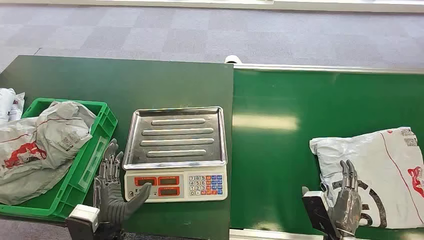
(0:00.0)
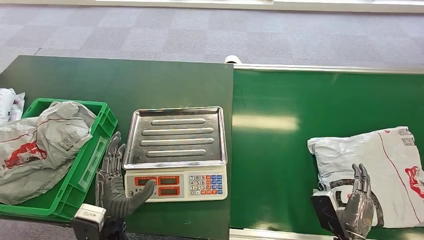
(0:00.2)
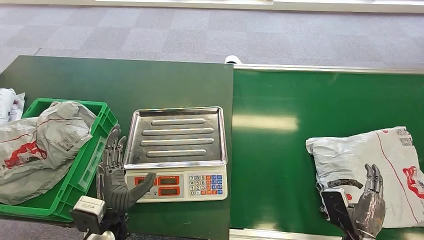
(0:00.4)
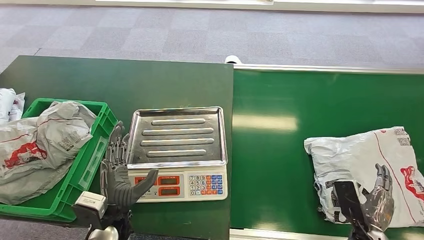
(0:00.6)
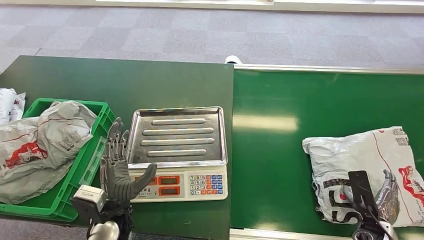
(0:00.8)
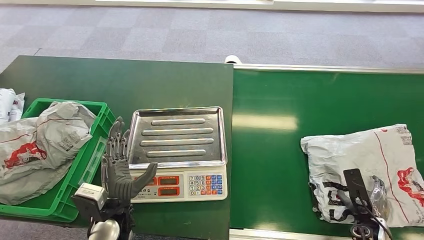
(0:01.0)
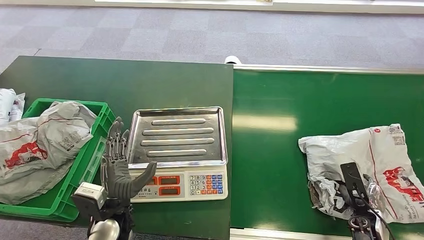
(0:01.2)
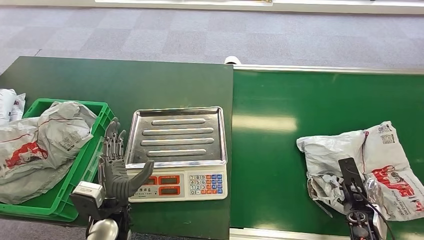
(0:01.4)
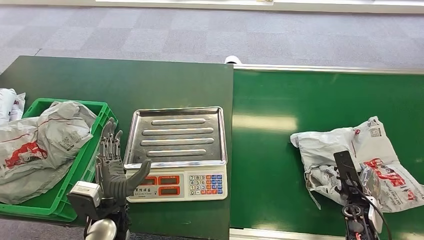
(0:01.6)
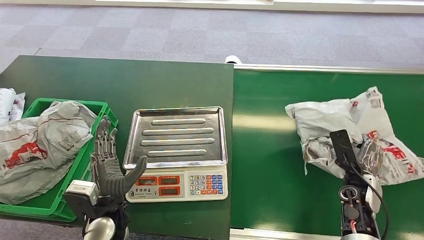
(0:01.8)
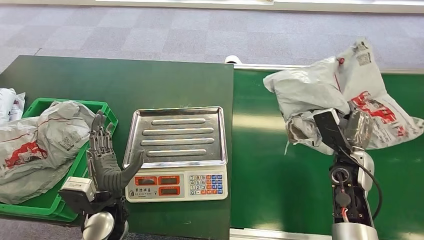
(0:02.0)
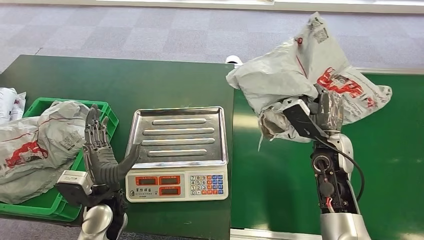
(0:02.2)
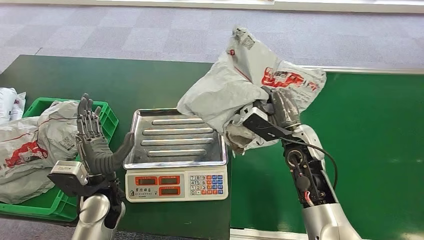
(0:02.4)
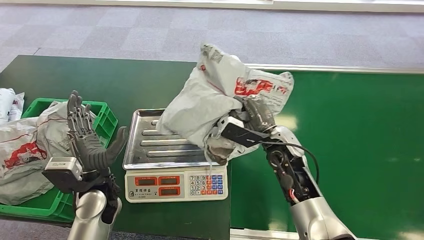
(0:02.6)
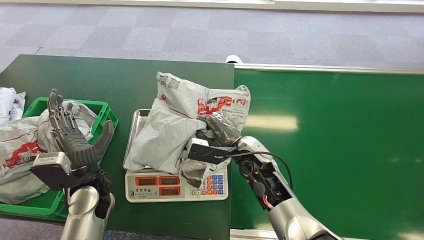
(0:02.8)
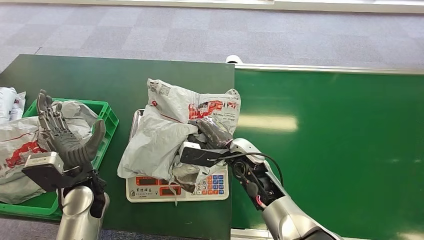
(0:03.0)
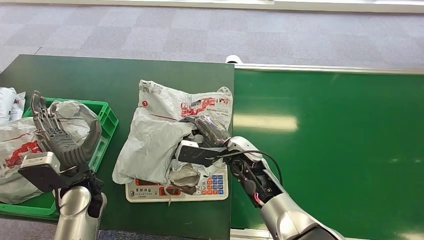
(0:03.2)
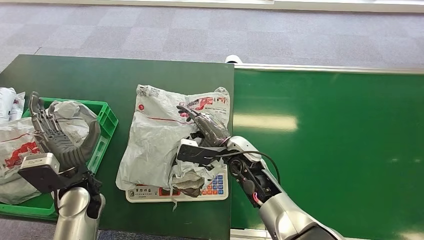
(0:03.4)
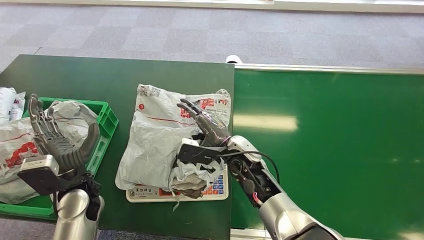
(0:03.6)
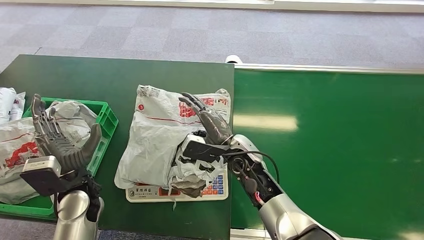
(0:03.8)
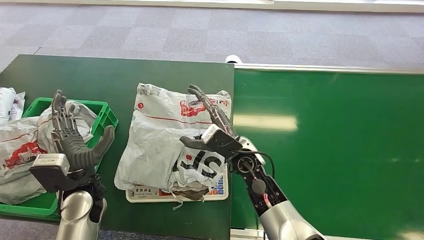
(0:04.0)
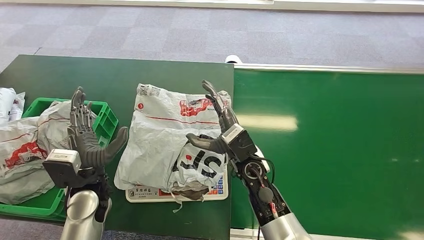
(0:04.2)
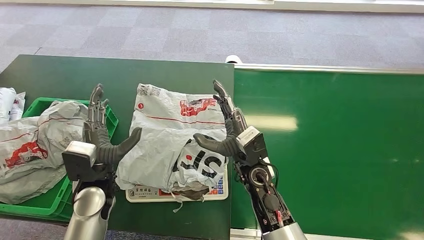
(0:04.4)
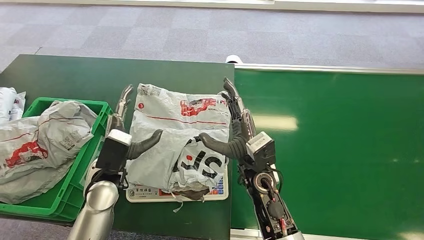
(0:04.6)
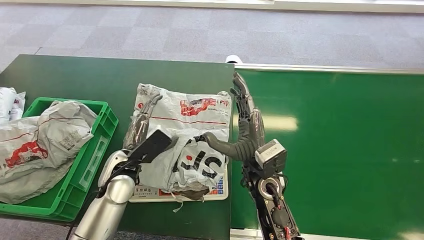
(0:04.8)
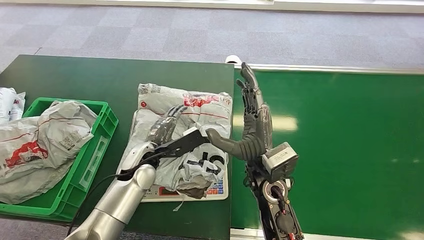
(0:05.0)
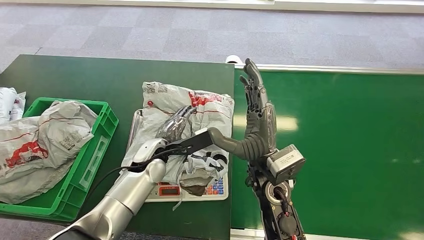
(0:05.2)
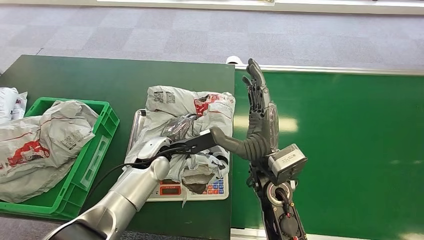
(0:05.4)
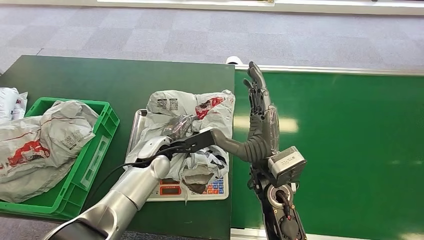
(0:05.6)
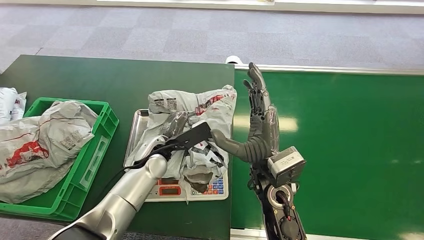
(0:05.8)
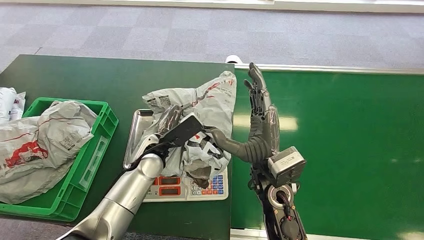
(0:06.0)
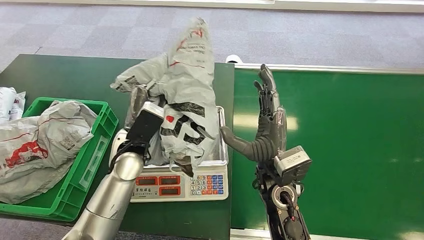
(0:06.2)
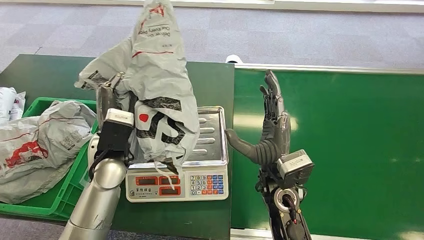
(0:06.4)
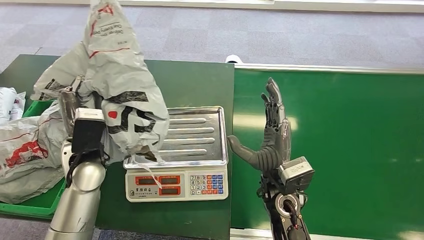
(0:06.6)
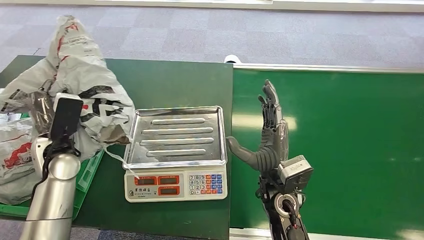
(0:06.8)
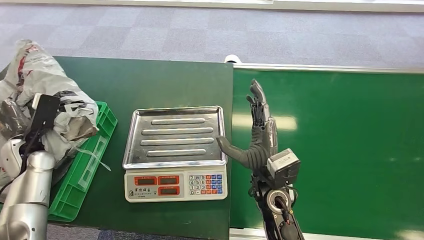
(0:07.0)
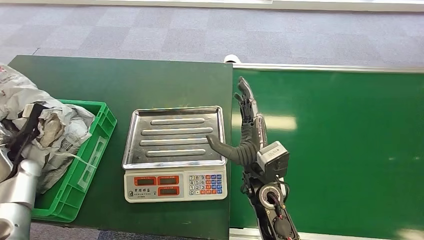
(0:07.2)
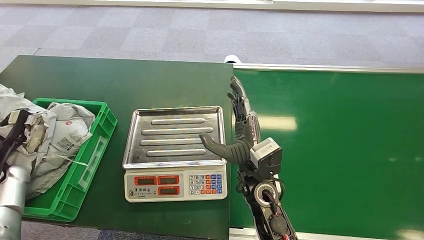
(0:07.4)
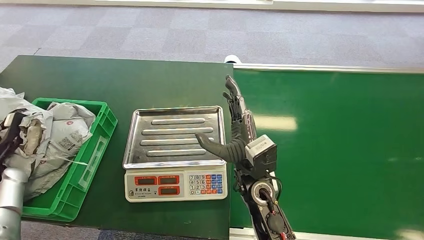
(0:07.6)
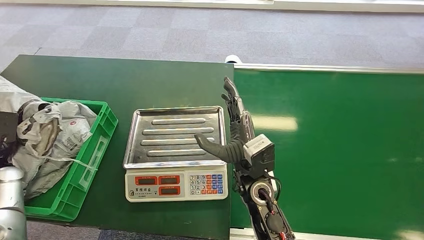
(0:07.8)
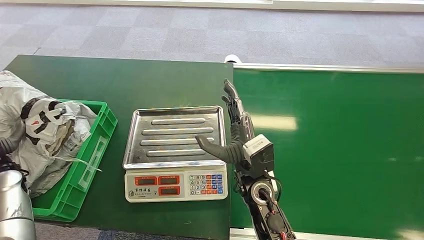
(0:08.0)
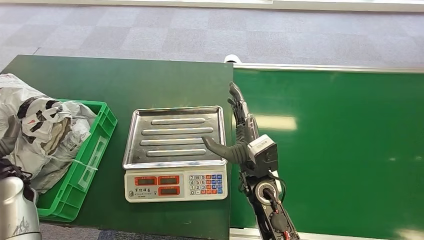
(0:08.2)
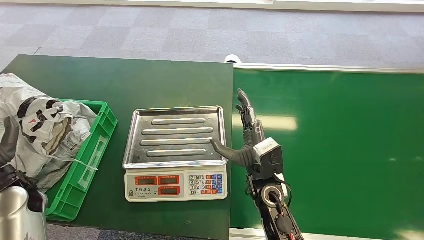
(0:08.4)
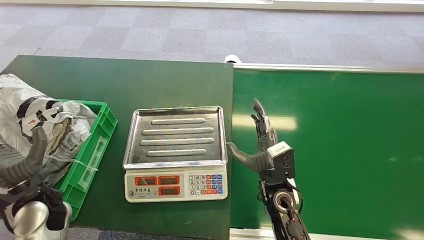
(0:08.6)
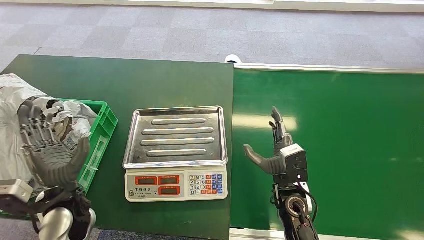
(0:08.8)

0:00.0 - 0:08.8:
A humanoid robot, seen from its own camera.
Step, 0:00.0 - 0:02.2: Pick up the package from the conveyor belt.
Step, 0:02.6 - 0:05.2: Place the package onto the inbound machine.
Step, 0:05.6 - 0:06.6: Pick up the package from the inbound machine.
Step, 0:06.8 - 0:08.8: Place the package into the parcel locker.
0:07.4 - 0:08.8: The left hand shifts about 25 cm to the right. The right hand shifts approximately 15 cm to the right and downward.
